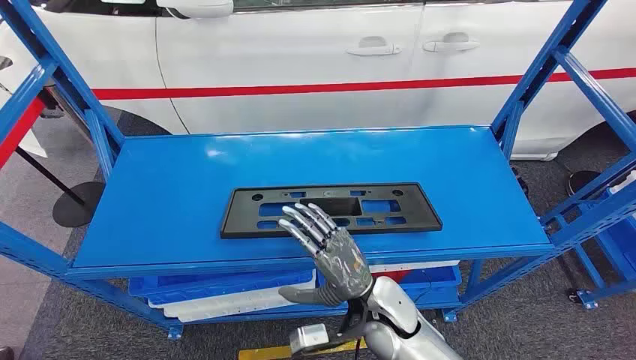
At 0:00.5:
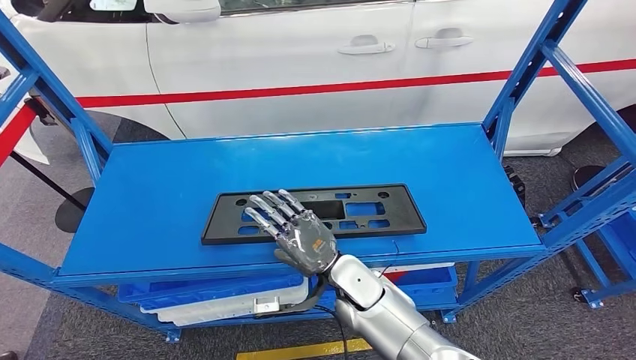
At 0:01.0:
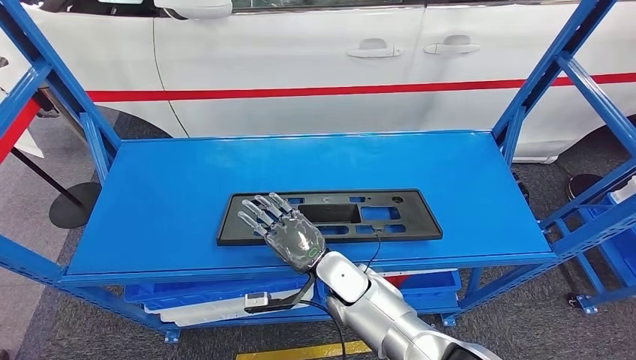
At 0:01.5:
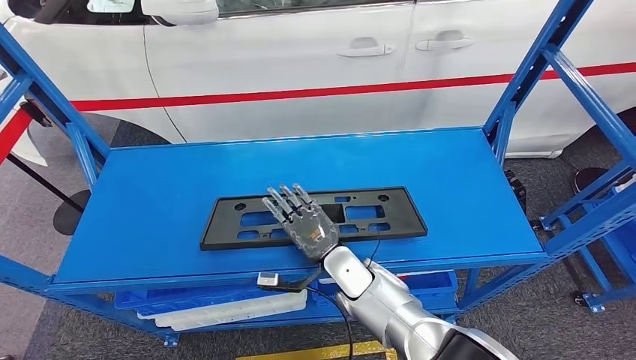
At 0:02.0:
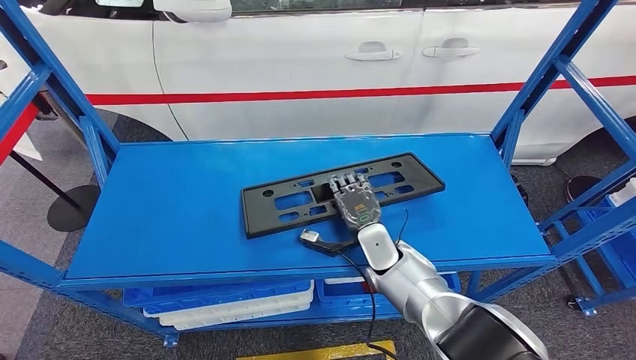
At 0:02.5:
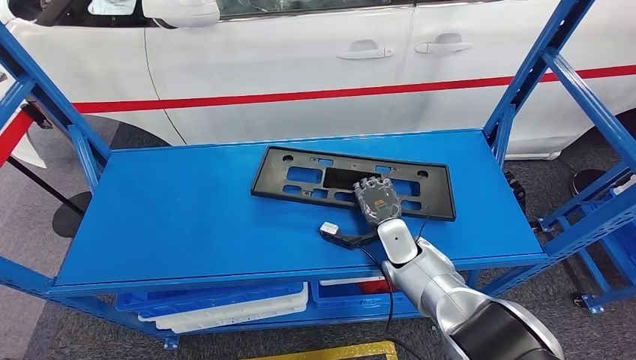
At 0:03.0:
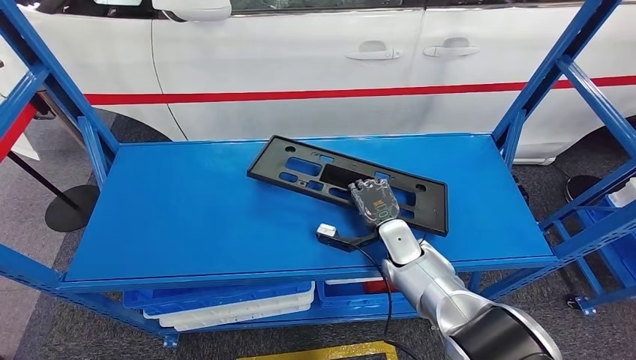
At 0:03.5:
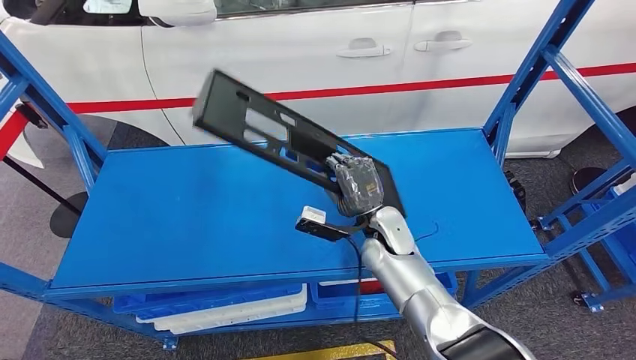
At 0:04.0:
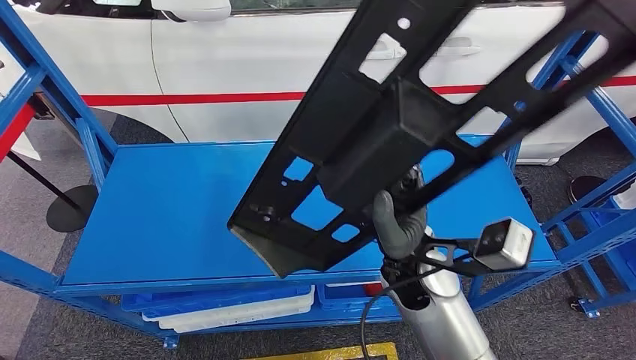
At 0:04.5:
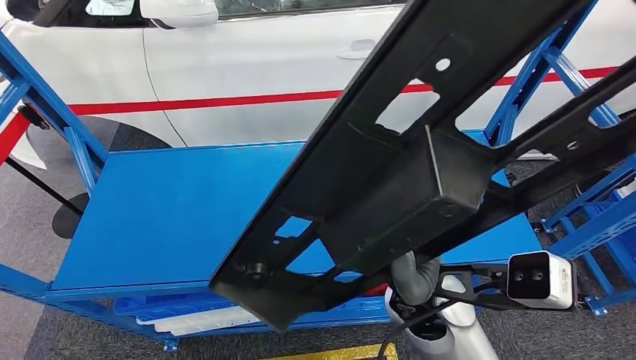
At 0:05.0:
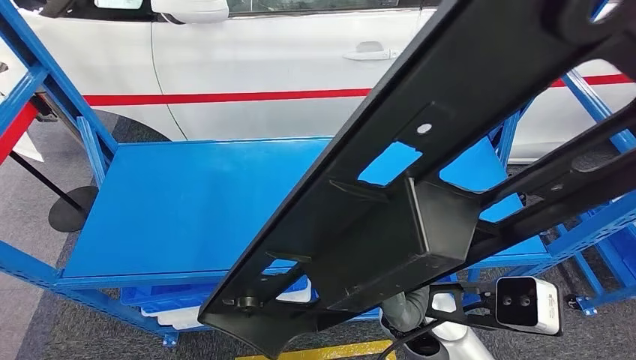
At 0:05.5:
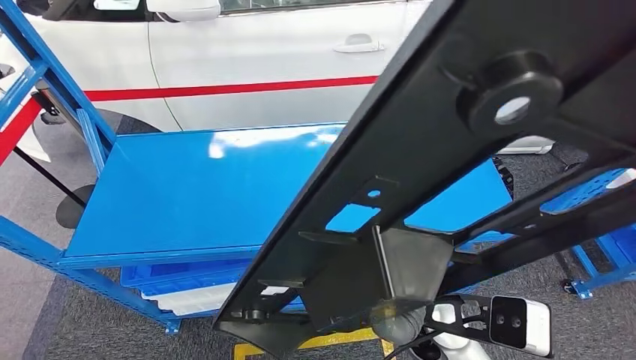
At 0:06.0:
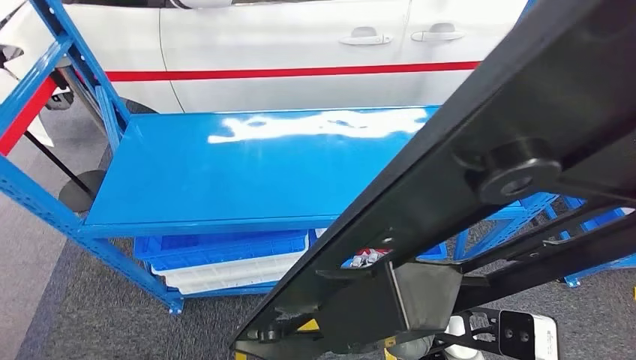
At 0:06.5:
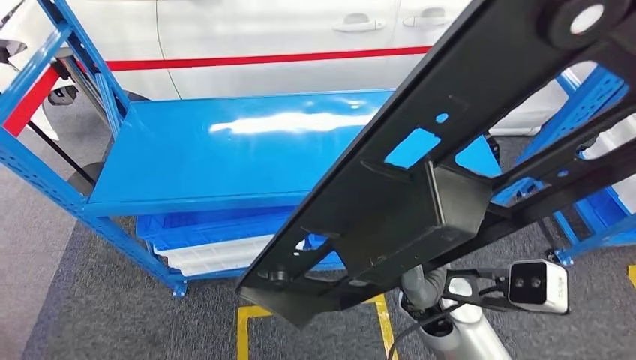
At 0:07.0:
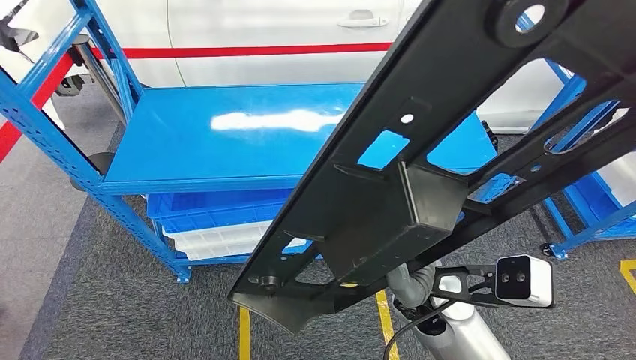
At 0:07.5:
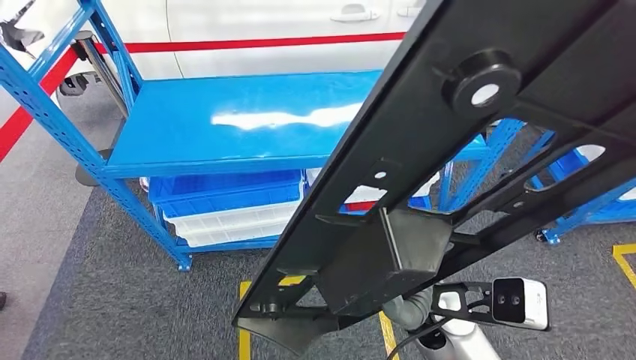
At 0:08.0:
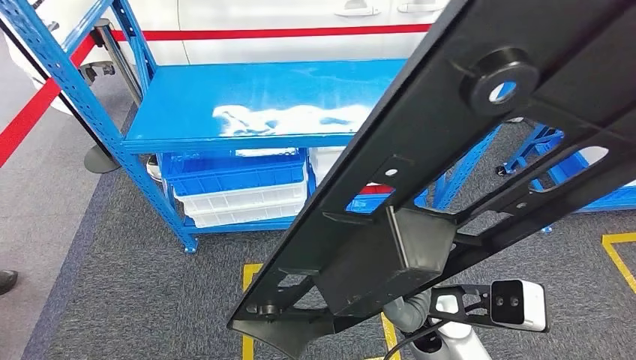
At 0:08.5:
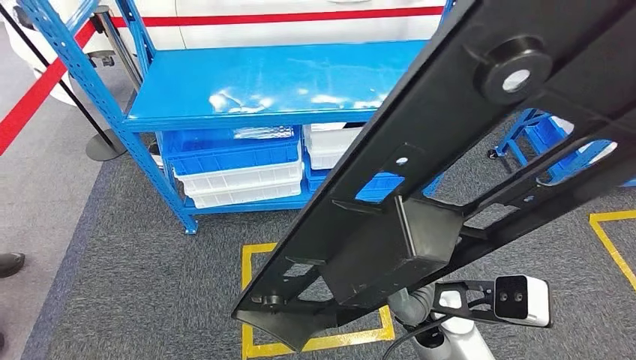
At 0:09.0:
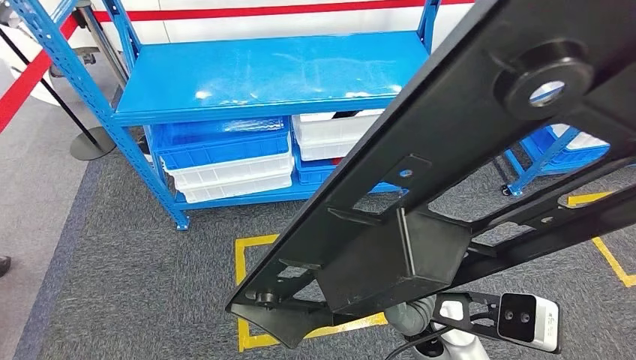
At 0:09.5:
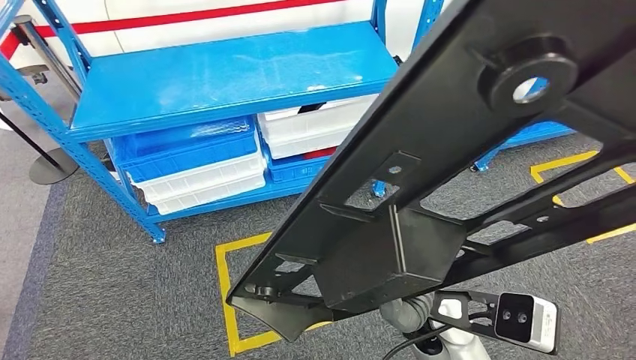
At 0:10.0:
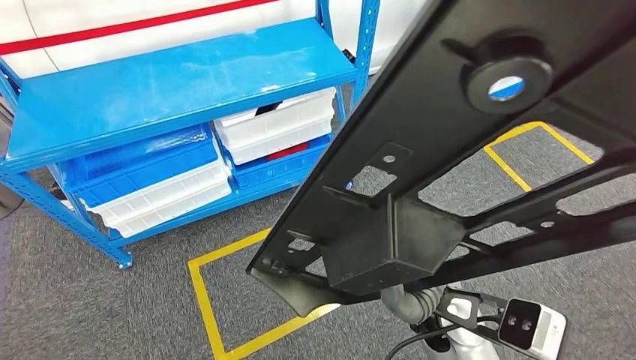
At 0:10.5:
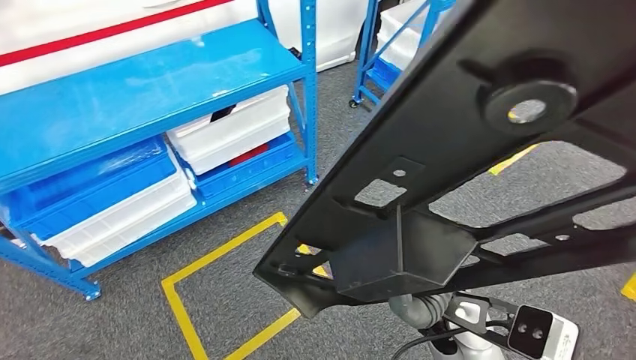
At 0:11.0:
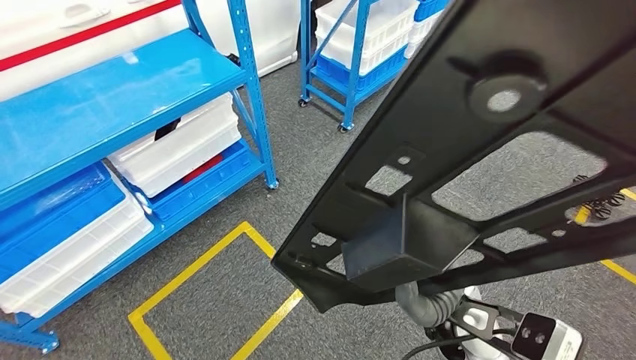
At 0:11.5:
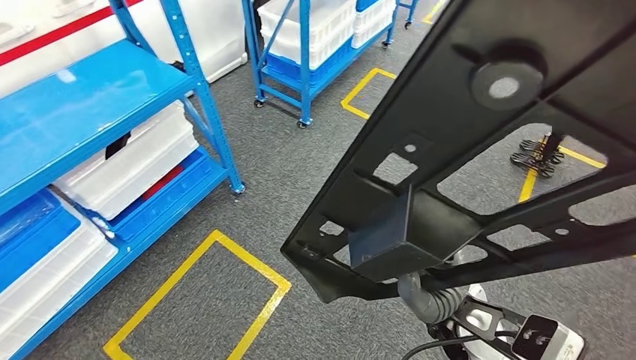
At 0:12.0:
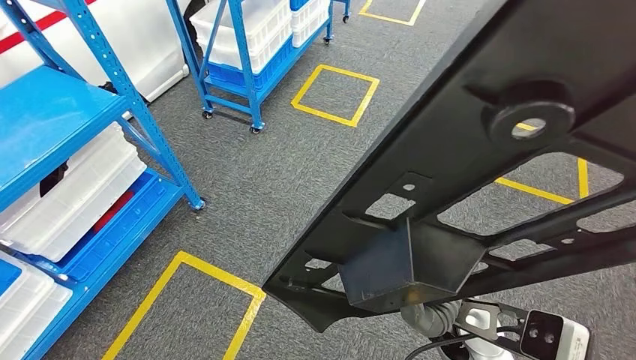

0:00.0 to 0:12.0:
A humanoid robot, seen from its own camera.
Step, 0:00.0 to 0:05.0: Pick up the large material from the shelf.

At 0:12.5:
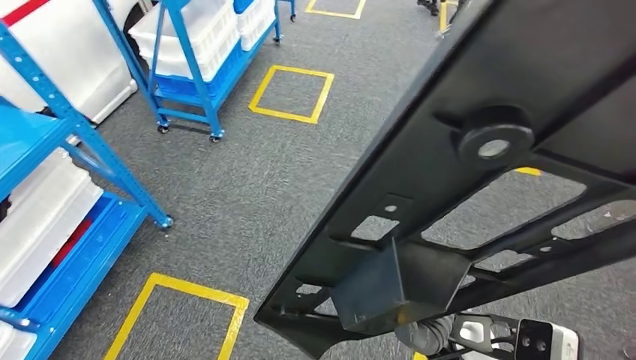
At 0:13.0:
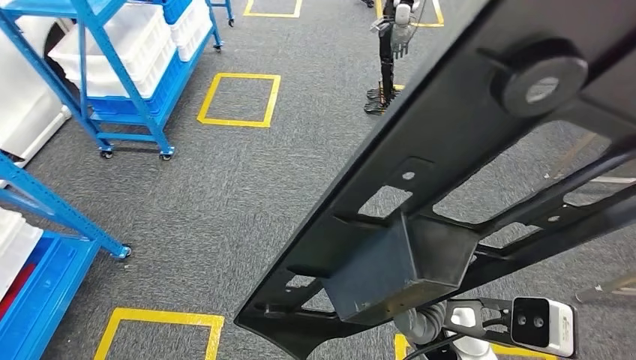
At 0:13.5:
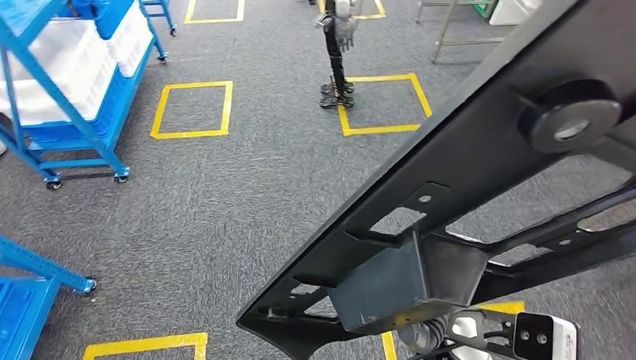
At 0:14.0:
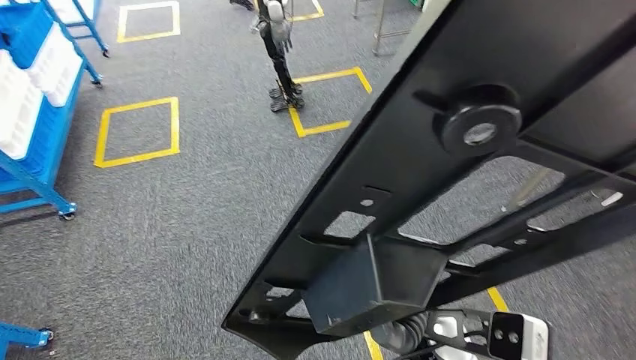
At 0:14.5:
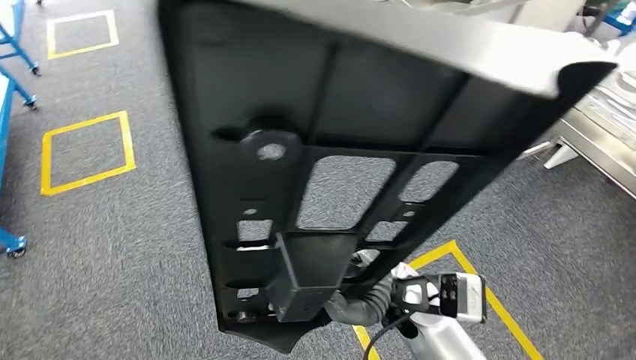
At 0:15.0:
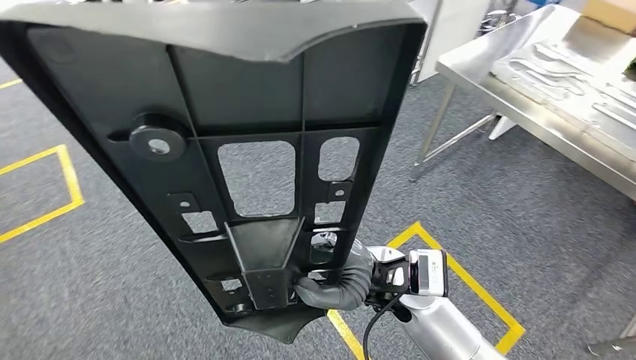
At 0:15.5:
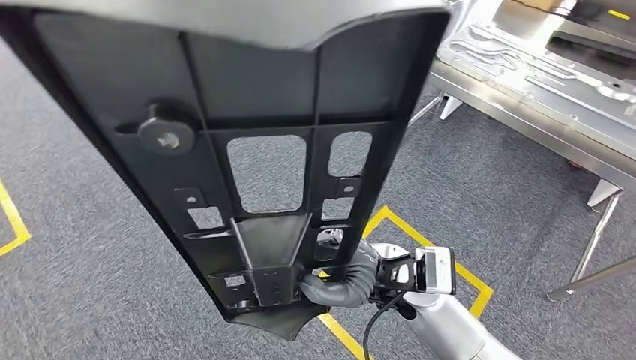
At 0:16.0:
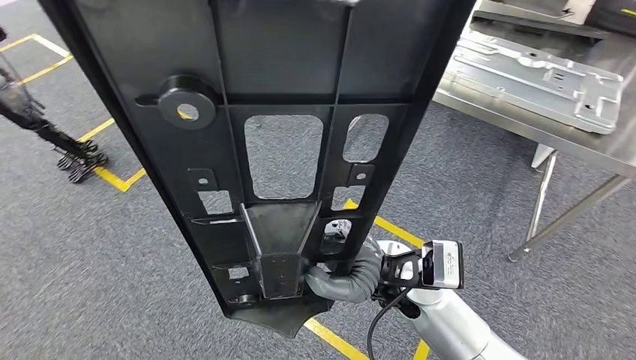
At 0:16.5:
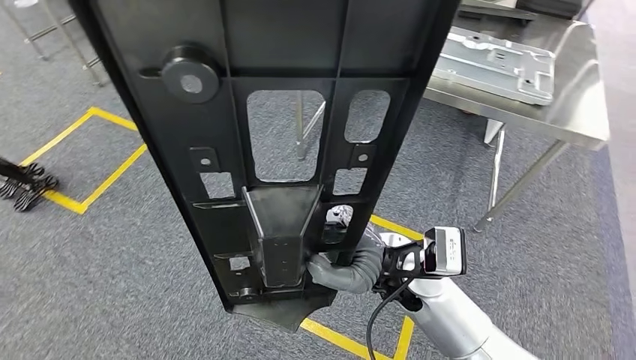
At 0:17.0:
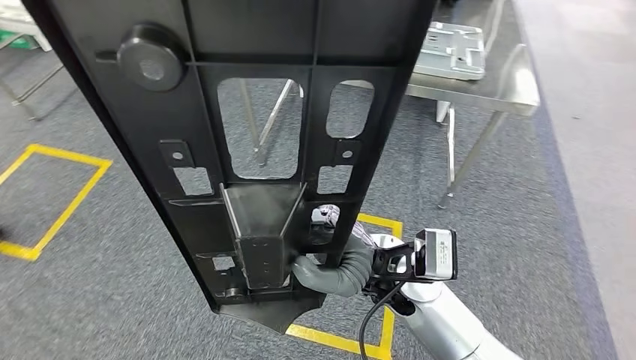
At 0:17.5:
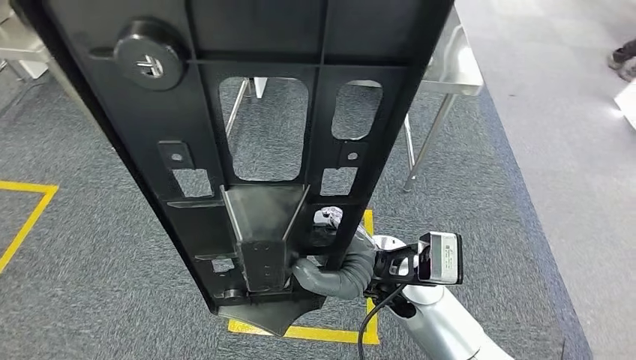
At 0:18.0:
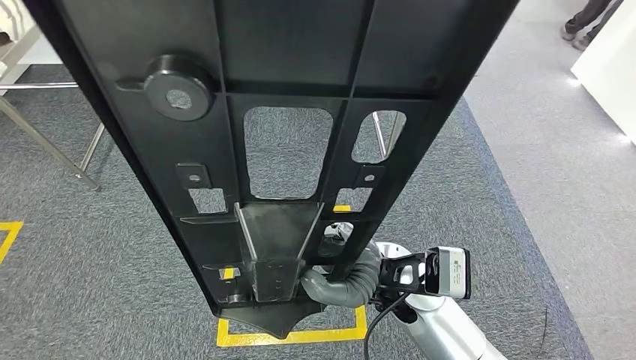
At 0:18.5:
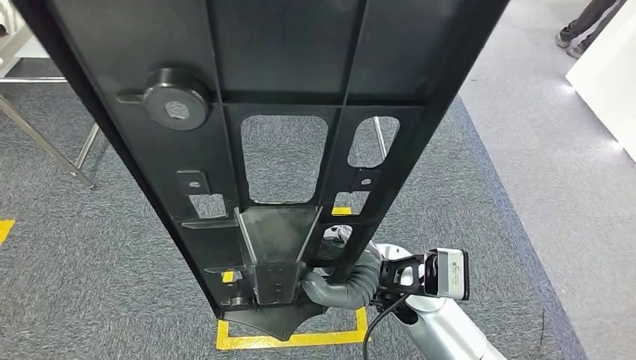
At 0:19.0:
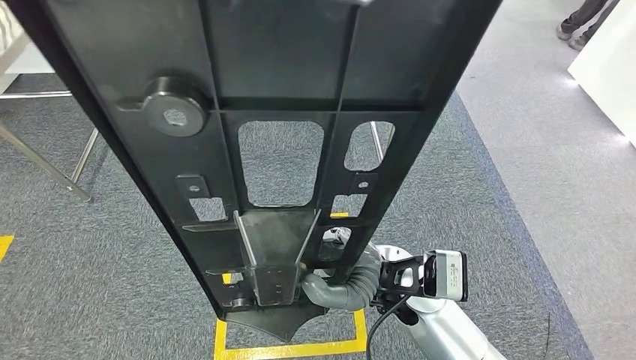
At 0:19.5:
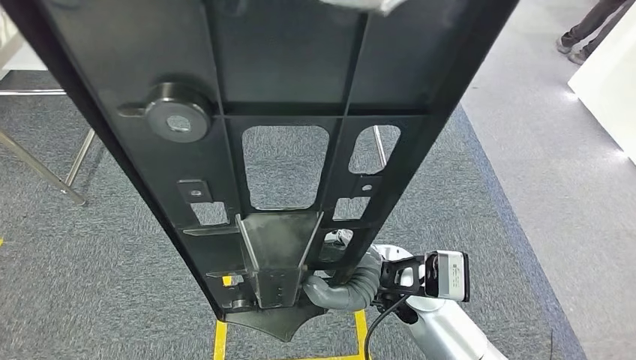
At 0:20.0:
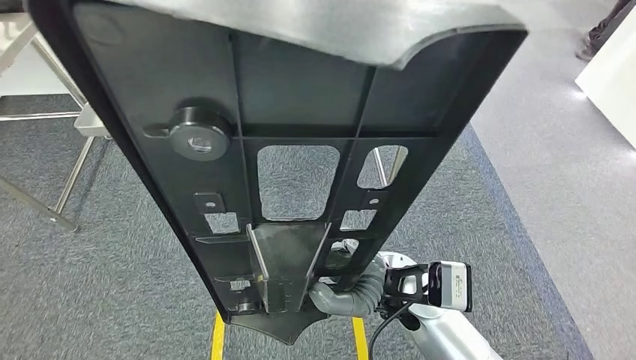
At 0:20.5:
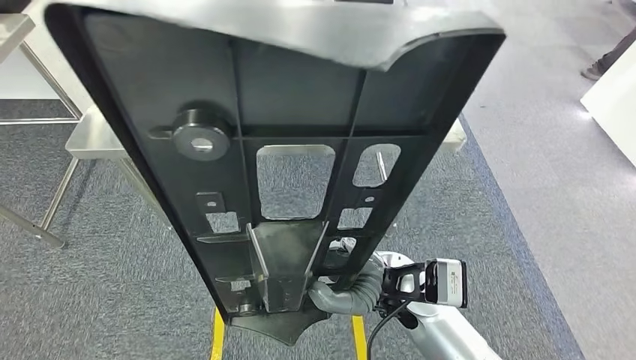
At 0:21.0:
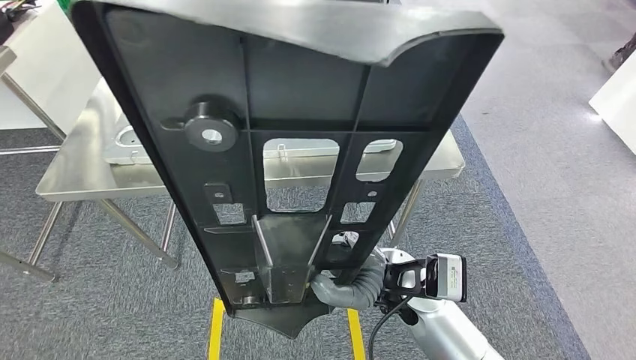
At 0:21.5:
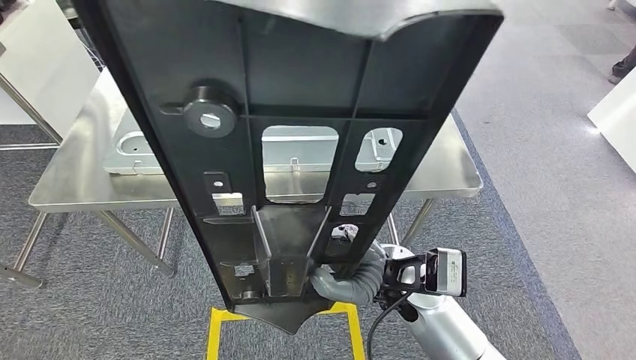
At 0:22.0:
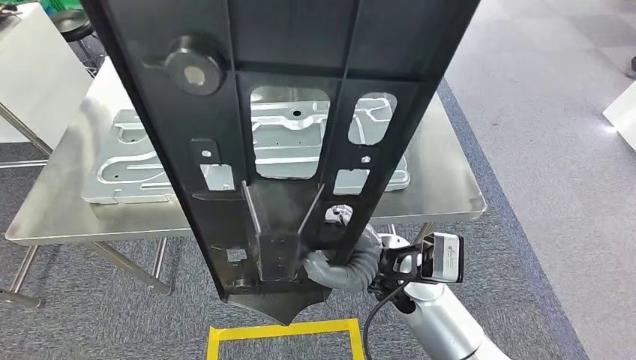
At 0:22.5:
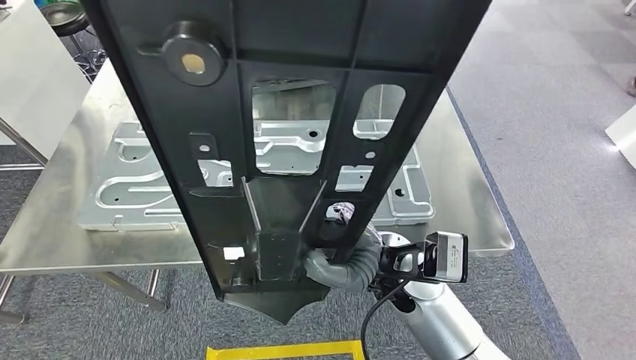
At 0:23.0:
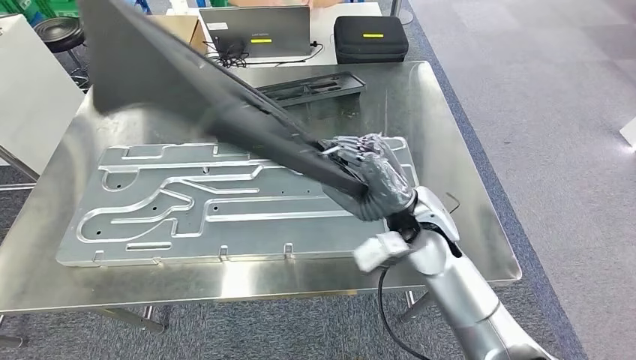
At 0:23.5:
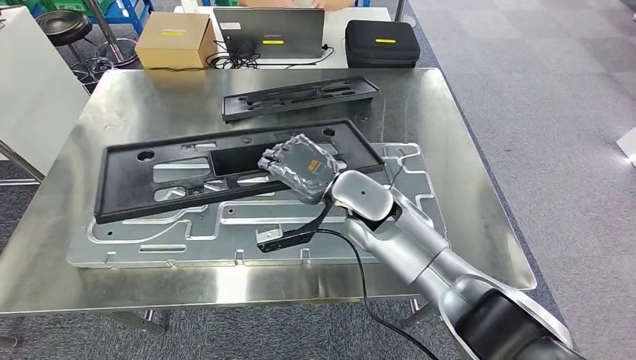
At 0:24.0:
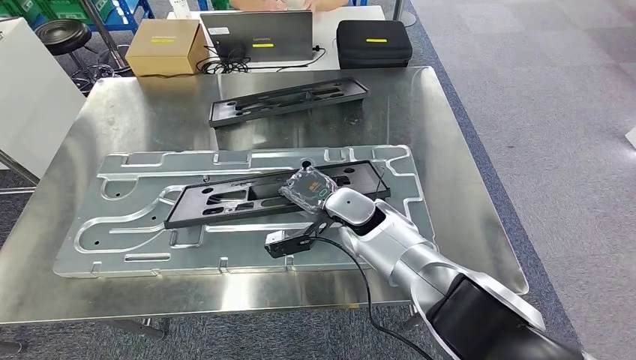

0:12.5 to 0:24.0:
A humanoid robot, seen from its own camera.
Step, 0:12.5 to 0:22.0: Move the large material to the workbench.
